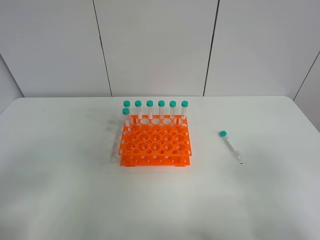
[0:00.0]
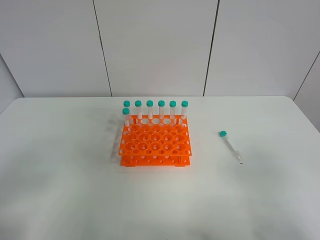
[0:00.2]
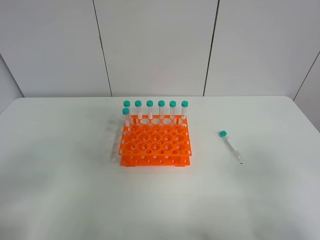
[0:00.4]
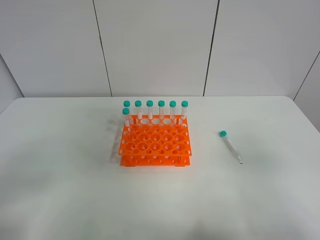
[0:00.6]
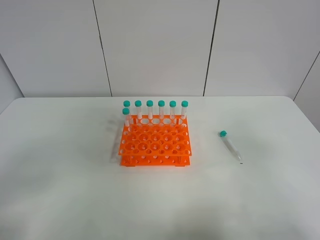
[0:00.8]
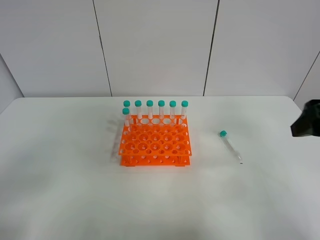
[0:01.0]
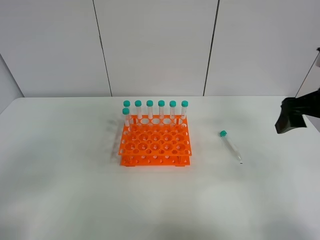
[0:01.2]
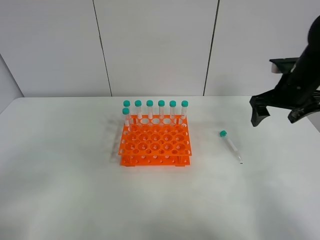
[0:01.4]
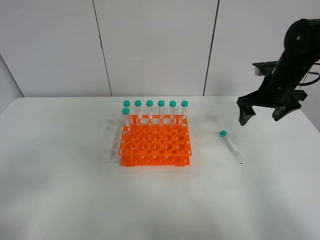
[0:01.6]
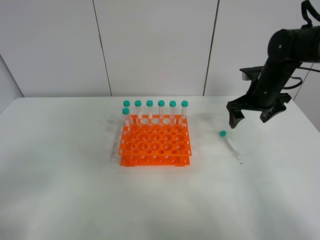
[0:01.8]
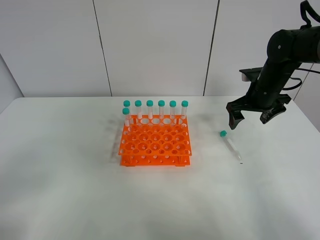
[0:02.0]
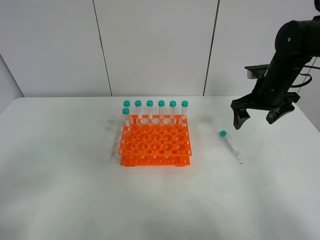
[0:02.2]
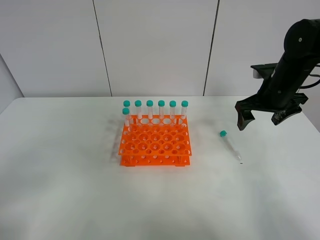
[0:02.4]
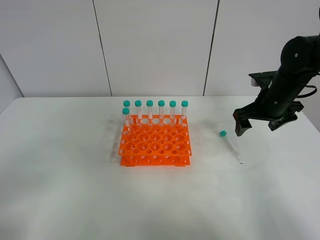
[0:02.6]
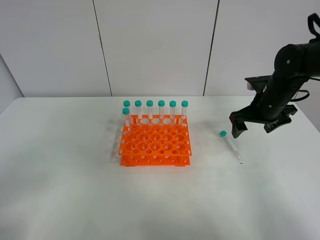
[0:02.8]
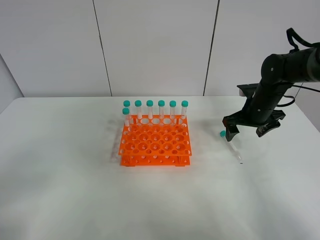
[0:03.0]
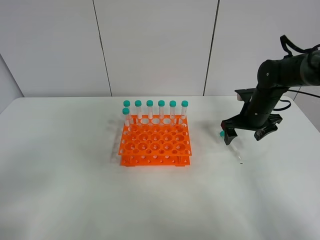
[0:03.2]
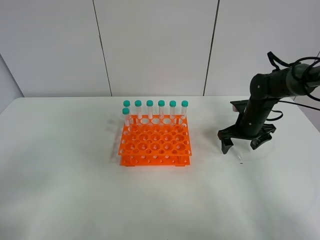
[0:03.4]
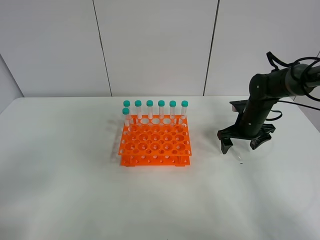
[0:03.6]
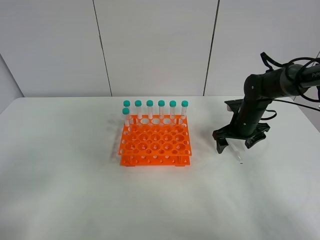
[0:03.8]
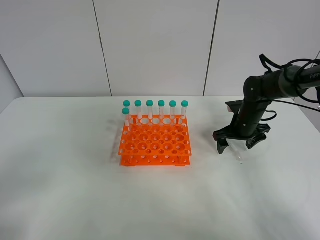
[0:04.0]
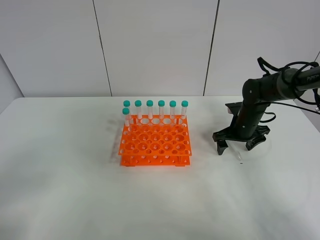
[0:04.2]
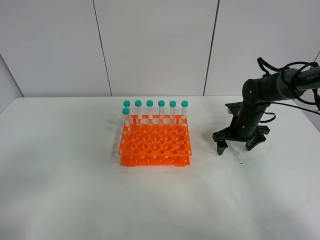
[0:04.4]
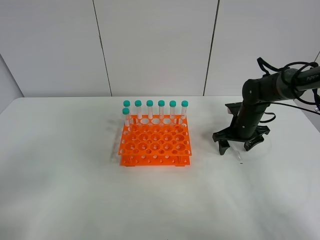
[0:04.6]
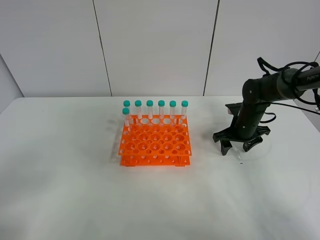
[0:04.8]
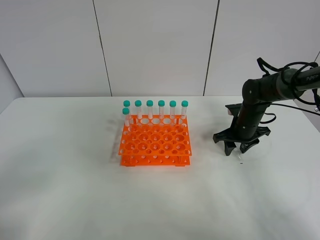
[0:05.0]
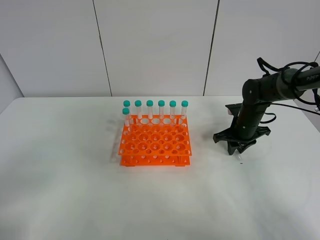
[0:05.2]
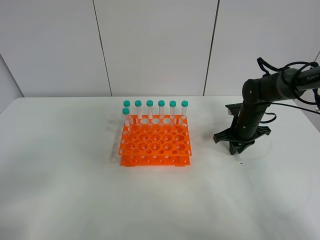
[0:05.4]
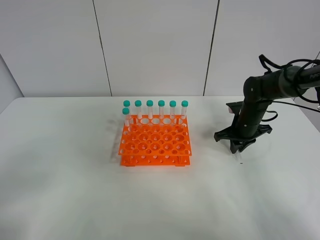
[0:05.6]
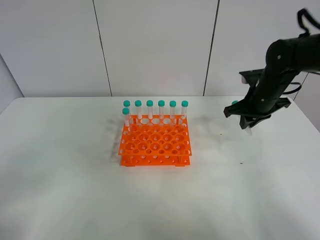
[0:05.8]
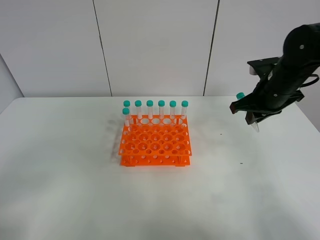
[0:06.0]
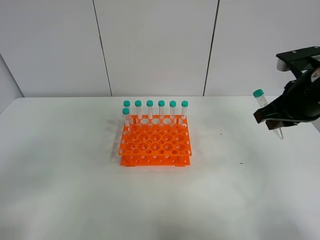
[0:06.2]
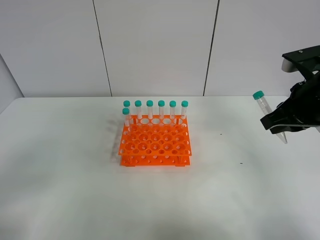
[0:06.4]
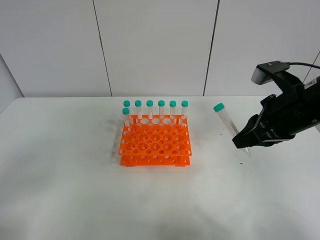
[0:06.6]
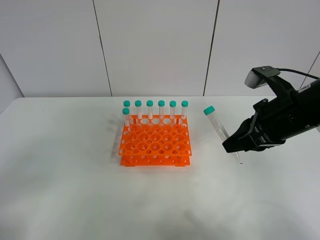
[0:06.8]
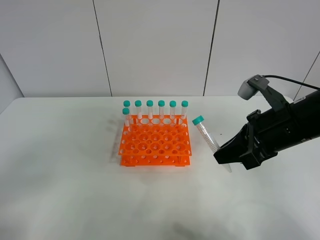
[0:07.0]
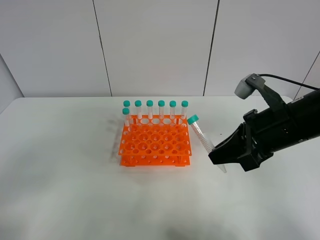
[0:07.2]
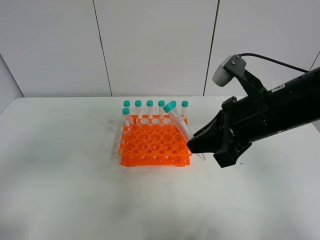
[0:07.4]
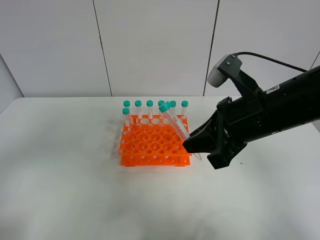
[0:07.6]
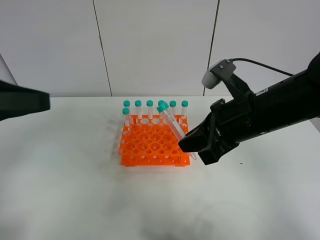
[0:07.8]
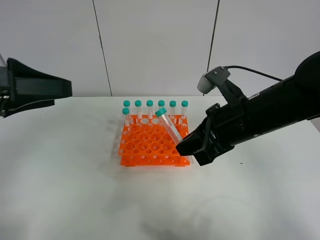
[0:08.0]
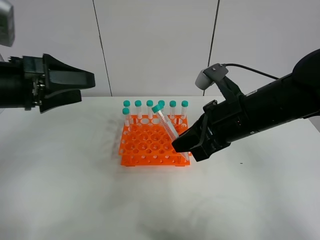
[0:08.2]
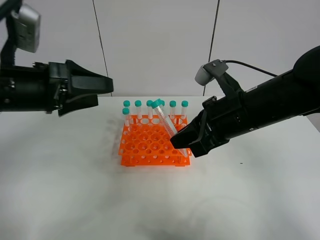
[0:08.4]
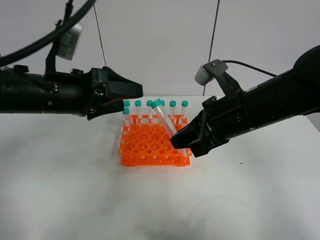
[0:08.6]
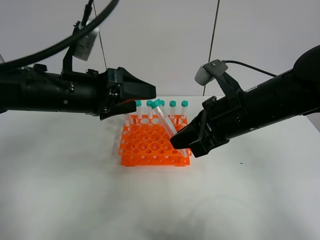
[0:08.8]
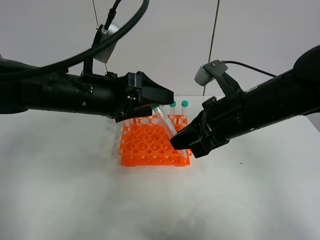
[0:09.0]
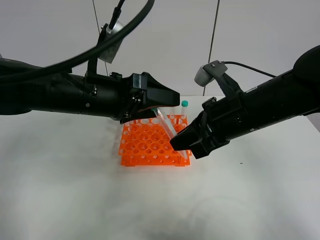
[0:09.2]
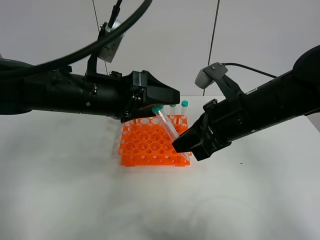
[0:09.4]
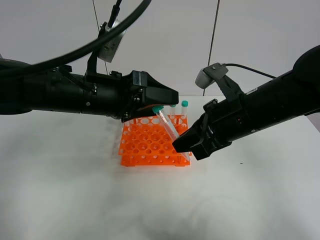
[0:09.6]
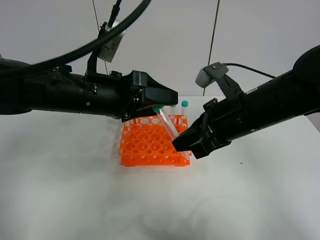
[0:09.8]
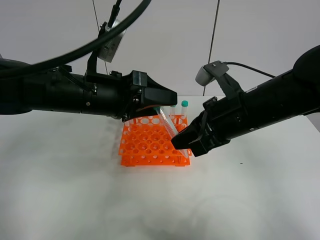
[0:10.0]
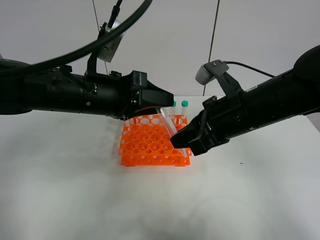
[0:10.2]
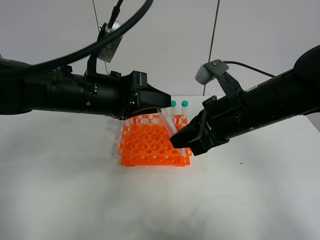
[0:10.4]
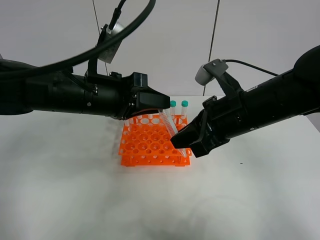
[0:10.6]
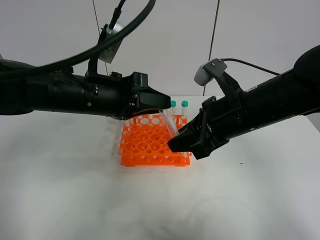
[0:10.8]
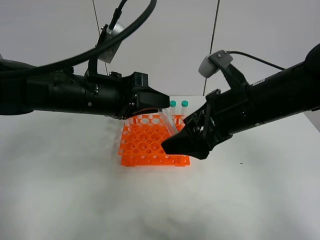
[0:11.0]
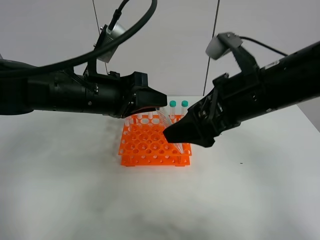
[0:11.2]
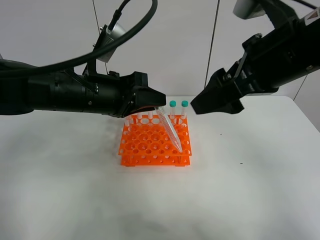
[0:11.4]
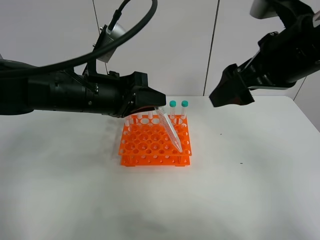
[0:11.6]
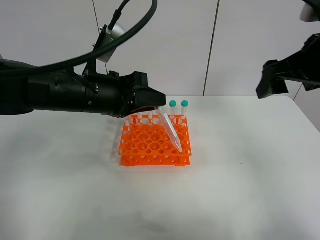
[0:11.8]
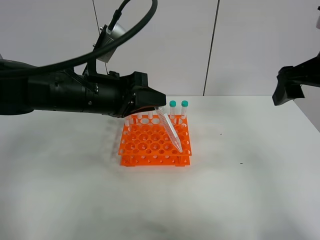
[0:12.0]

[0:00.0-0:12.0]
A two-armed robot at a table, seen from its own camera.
Task of the whole recording: Put the test tube on the table back onto the test tube rack.
Step, 0:00.0 to 0:05.8: Pick up the test tube with the right gripper.
Step, 0:06.0 to 0:11.6: Move the test tube from the right gripper to the left gripper.
0:00.0 to 0:01.6: The right gripper goes approximately 40 cm forward.
0:01.6 to 0:03.0: The right gripper goes some 5 cm downward.
0:03.0 to 0:04.4: The right gripper moves downward, approximately 5 cm.
0:04.4 to 0:06.0: The right gripper moves upward and backward, some 15 cm, and closes its fingers.
0:06.0 to 0:07.6: The left gripper heads upward and forward, covering about 10 cm; the right gripper is displaced backward and to the left by approximately 15 cm.
0:07.6 to 0:09.0: The left gripper is displaced forward and to the right by about 25 cm.
0:09.0 to 0:10.4: The left gripper closes.
0:10.4 to 0:12.0: The right gripper moves to the right and upward, roughly 15 cm, and opens its fingers.

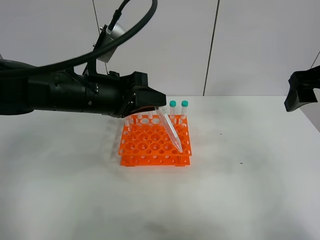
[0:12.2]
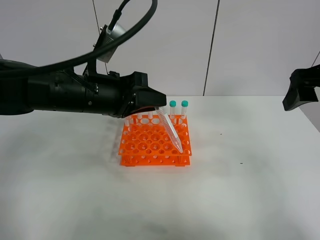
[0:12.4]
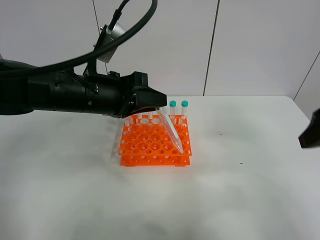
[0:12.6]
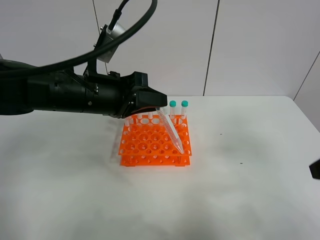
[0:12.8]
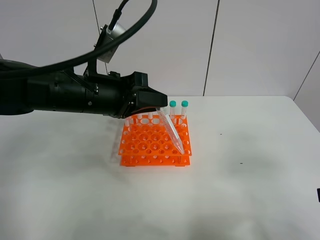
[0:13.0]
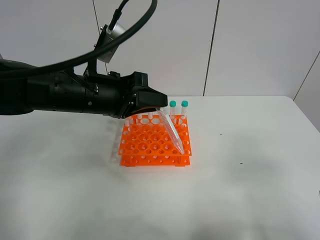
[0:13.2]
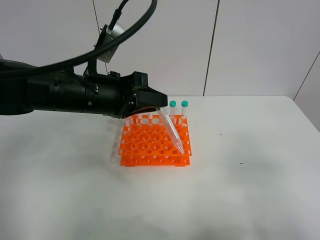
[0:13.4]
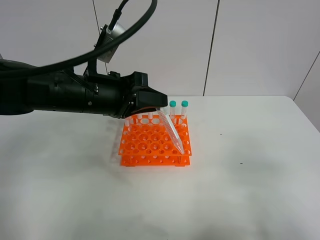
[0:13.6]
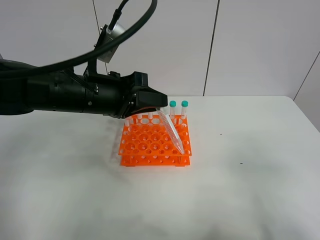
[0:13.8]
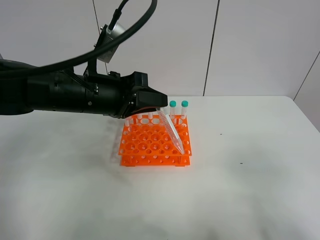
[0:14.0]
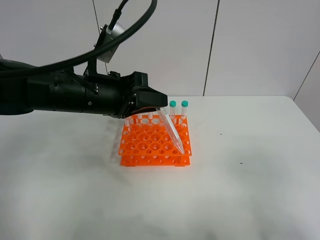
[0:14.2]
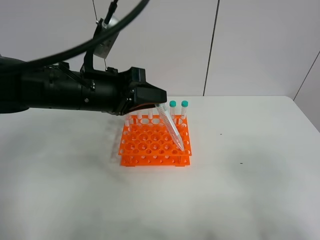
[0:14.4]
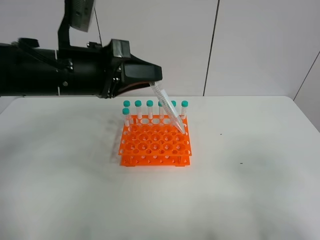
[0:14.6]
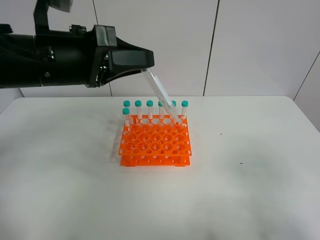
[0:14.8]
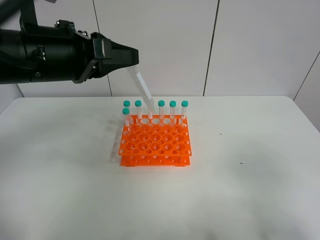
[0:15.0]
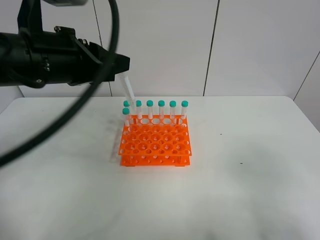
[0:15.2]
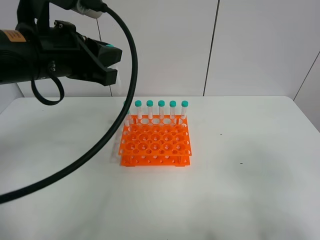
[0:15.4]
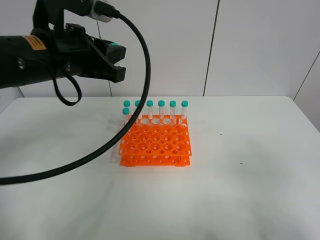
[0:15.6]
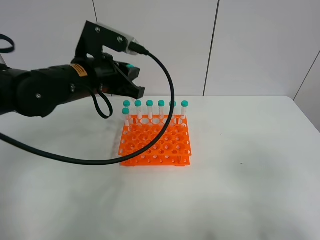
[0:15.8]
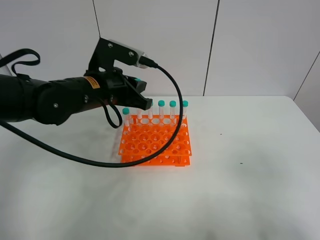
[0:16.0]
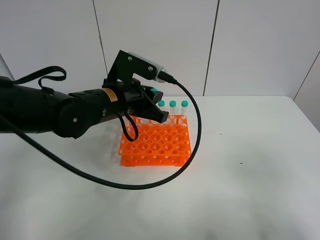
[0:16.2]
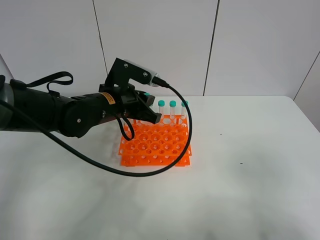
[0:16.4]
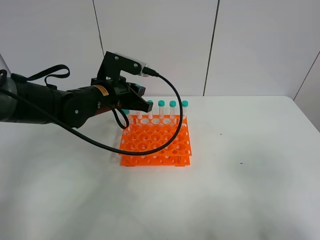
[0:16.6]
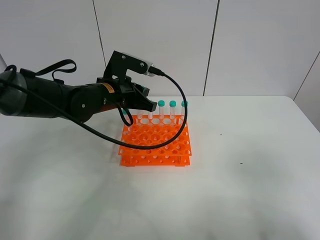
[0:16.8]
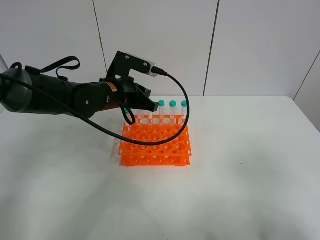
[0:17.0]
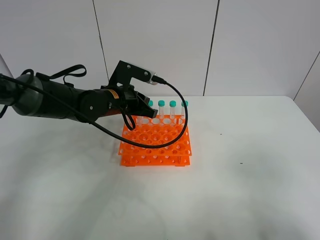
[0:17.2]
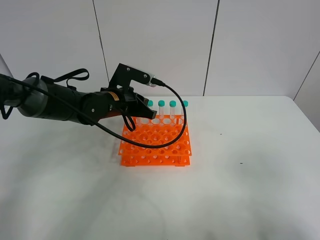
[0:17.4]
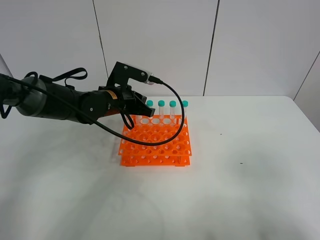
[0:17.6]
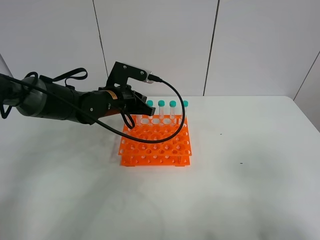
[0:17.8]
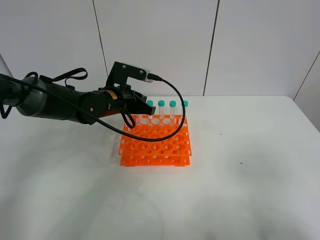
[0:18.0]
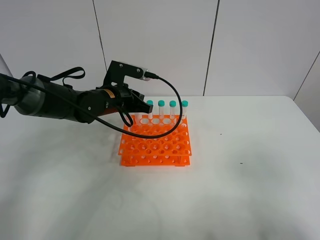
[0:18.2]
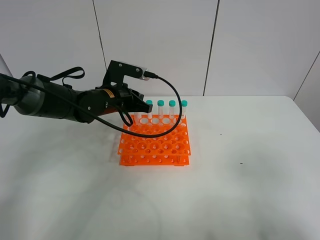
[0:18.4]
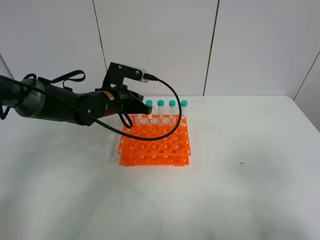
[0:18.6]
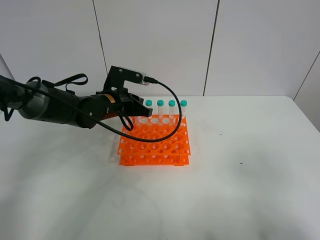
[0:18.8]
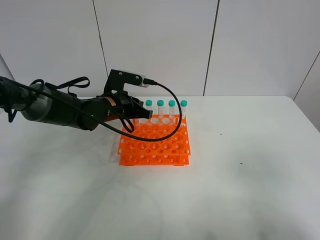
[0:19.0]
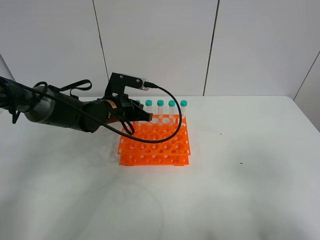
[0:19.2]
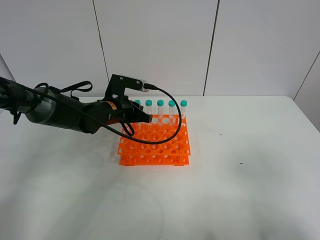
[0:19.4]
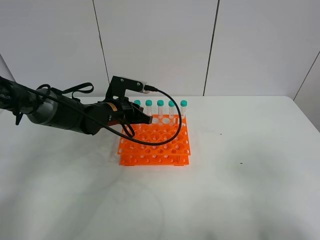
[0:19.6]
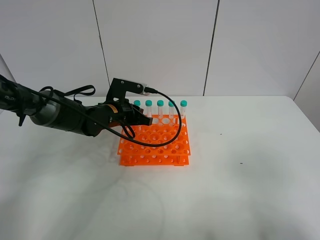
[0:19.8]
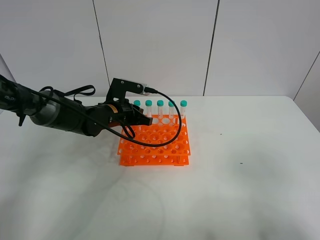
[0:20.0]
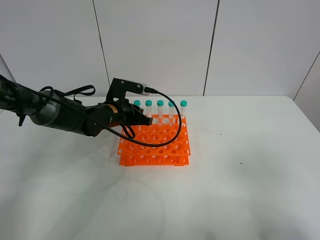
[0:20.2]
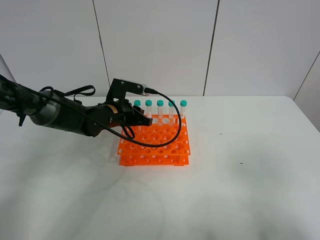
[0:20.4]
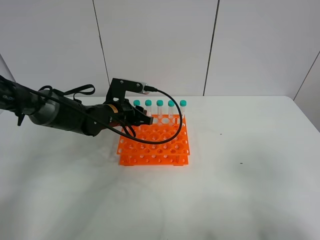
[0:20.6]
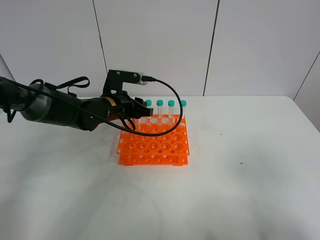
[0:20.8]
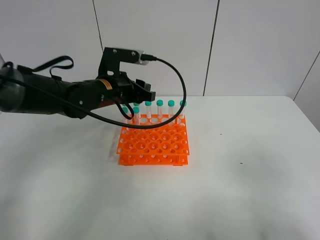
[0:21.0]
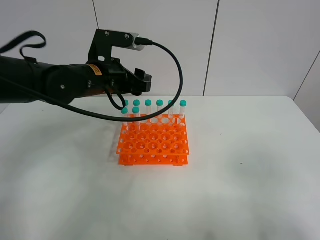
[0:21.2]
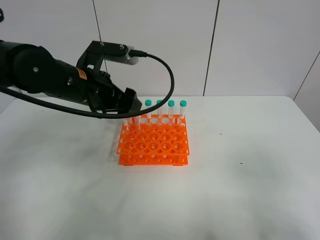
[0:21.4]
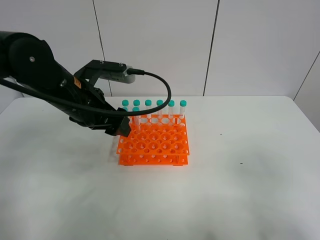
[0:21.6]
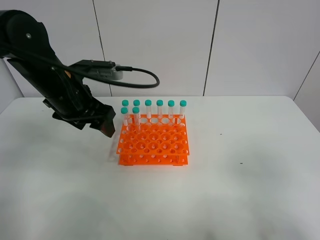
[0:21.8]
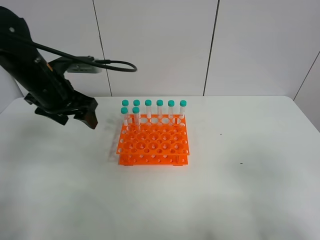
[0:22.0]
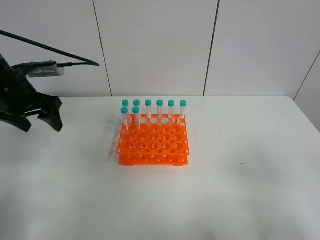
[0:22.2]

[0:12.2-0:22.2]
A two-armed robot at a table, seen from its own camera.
Task of the whole recording: Put the test tube on the table back onto the test tube rack.
Step, 0:12.2 to 0:21.2: Place the test tube on the test tube rack with the left gripper.
0:12.2 to 0:13.6: The right gripper travels backward and downward by approximately 20 cm.
0:13.6 to 0:15.0: The left gripper travels upward by approximately 10 cm.
0:15.0 to 0:16.4: The left gripper goes about 15 cm downward, forward and to the right.
0:16.4 to 0:18.0: The left gripper moves roughly 5 cm.
0:18.0 to 0:19.4: There are only small adjustments of the grippers.
0:19.4 to 0:20.8: The left gripper opens.
0:20.8 to 0:22.2: The left gripper heads to the left and upward, covering approximately 20 cm, and opens up.
